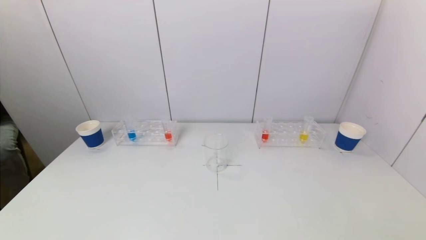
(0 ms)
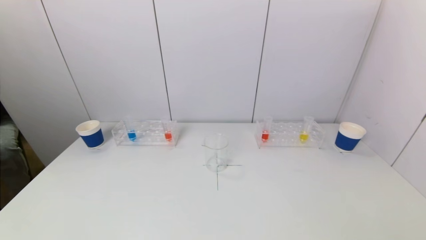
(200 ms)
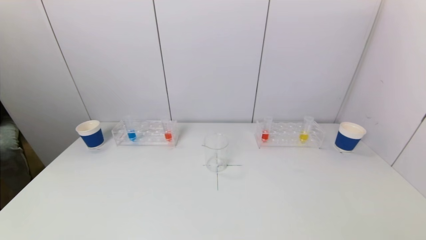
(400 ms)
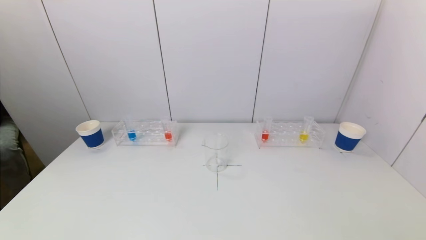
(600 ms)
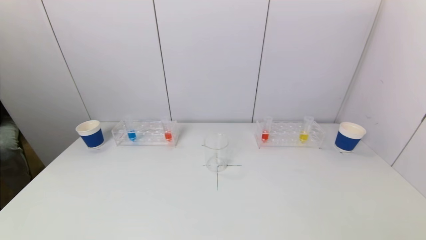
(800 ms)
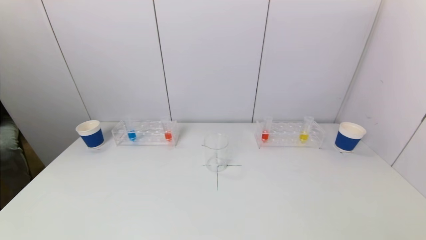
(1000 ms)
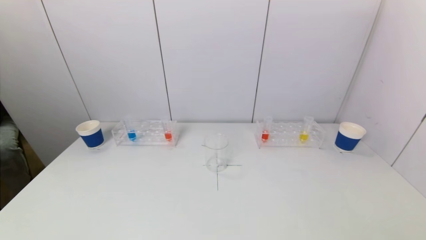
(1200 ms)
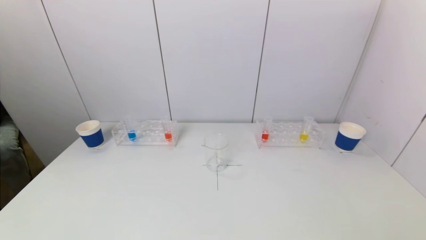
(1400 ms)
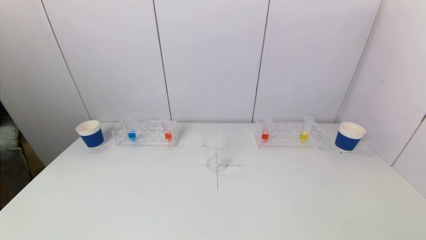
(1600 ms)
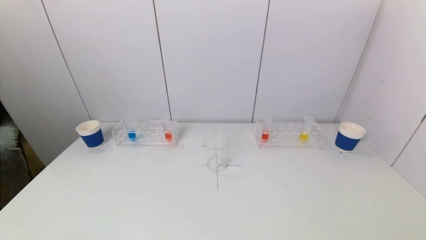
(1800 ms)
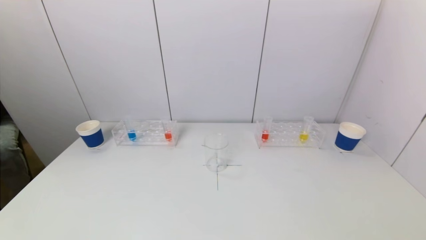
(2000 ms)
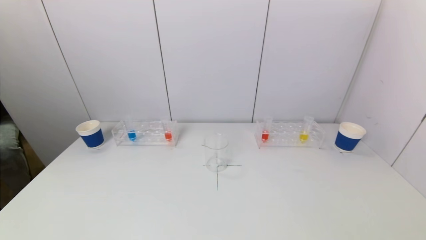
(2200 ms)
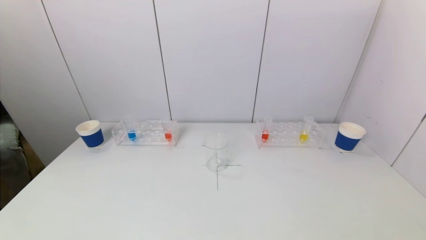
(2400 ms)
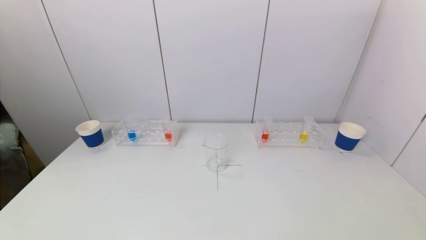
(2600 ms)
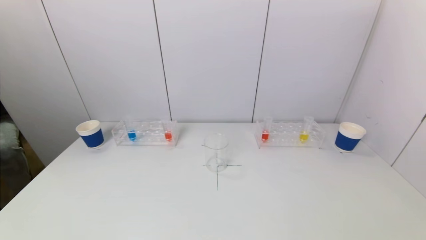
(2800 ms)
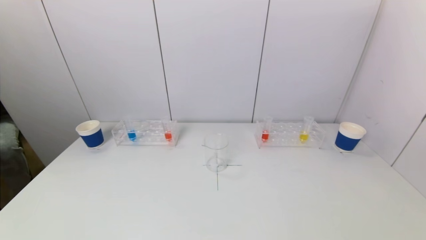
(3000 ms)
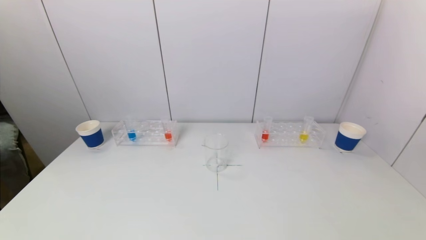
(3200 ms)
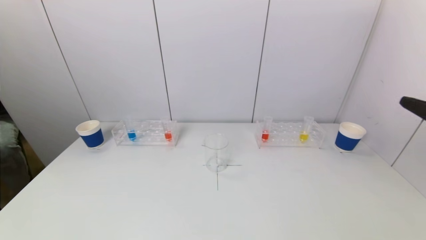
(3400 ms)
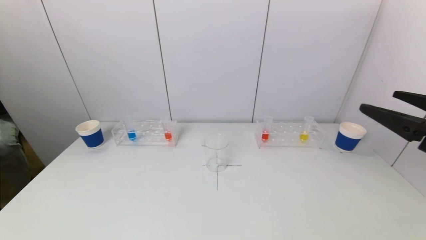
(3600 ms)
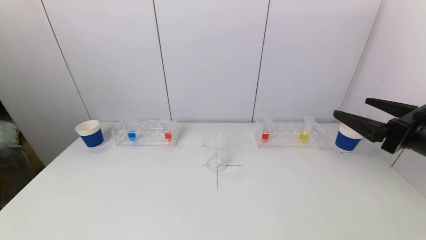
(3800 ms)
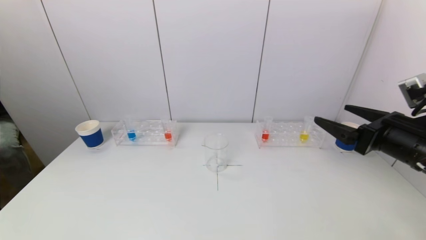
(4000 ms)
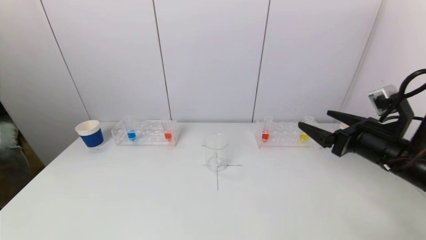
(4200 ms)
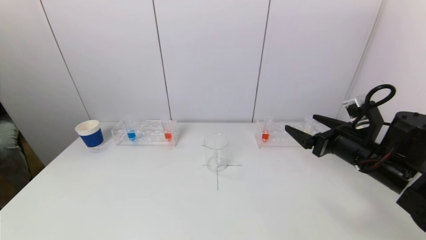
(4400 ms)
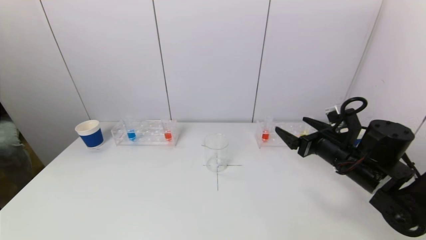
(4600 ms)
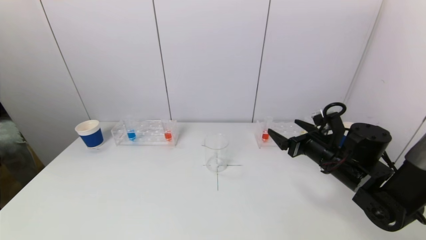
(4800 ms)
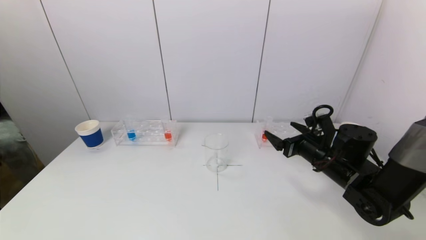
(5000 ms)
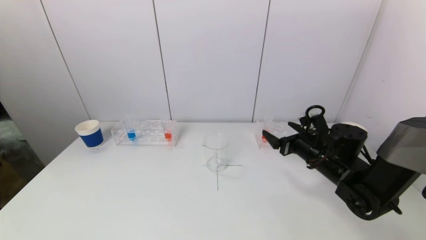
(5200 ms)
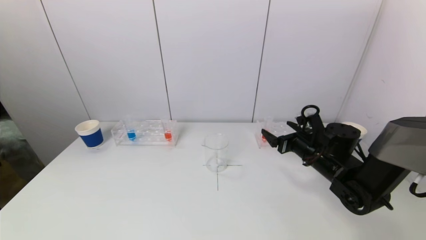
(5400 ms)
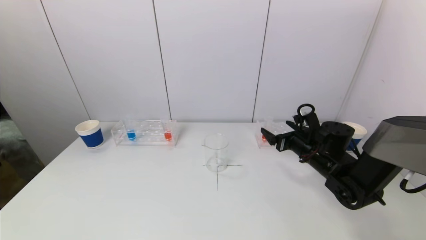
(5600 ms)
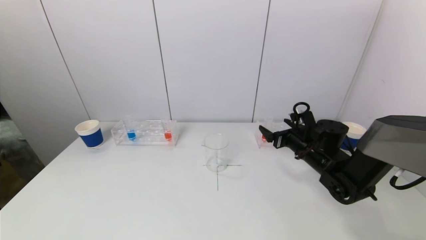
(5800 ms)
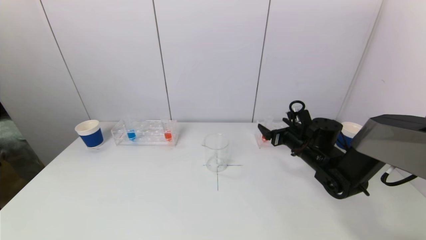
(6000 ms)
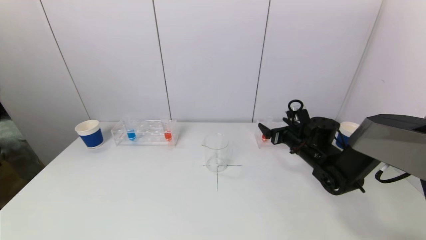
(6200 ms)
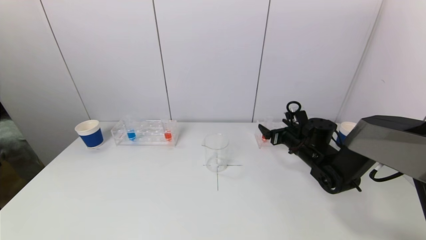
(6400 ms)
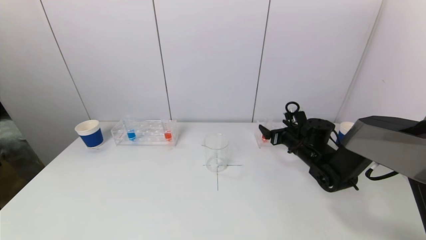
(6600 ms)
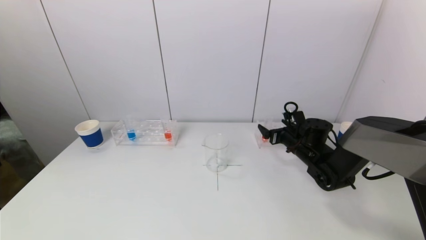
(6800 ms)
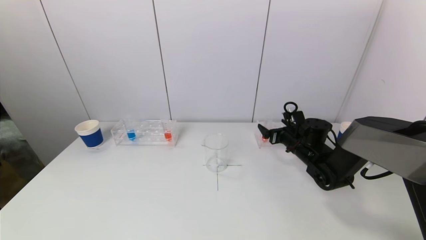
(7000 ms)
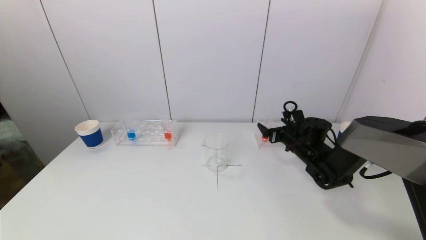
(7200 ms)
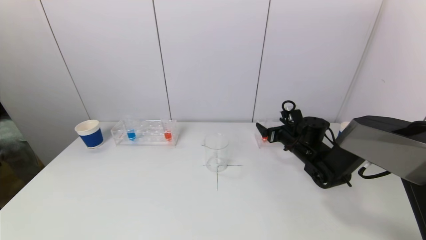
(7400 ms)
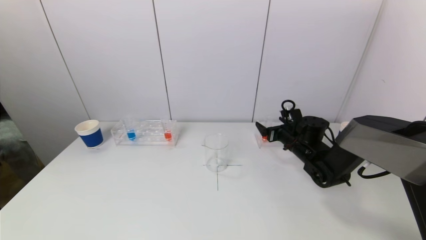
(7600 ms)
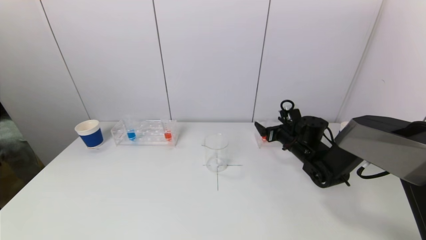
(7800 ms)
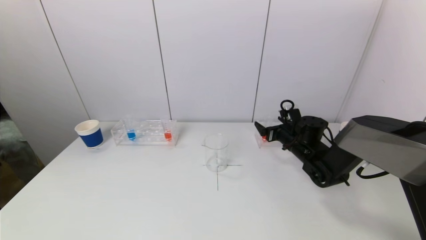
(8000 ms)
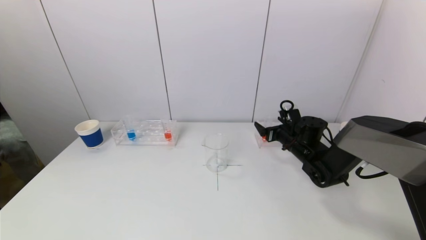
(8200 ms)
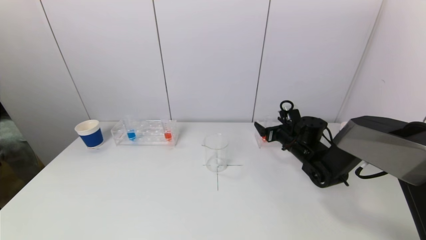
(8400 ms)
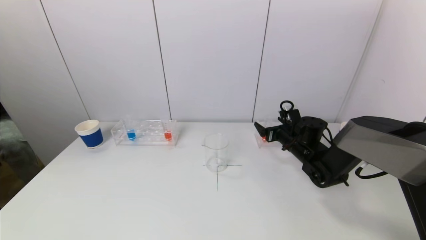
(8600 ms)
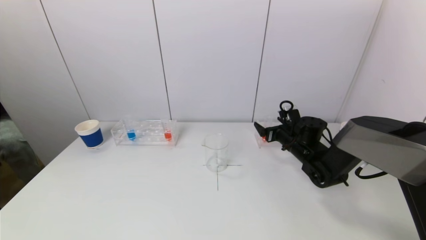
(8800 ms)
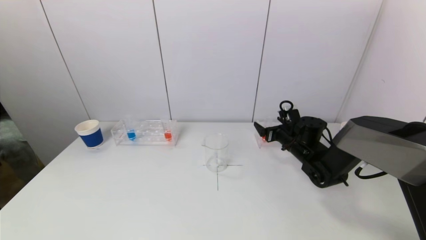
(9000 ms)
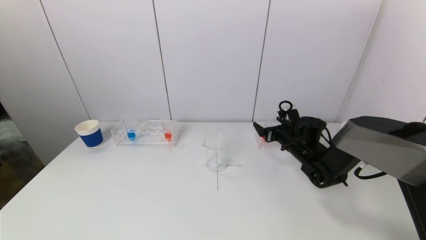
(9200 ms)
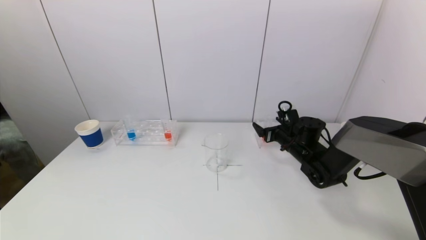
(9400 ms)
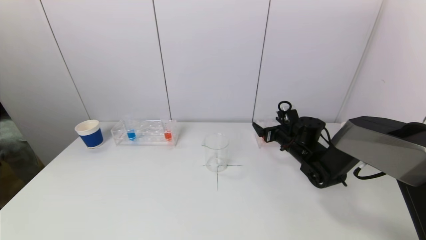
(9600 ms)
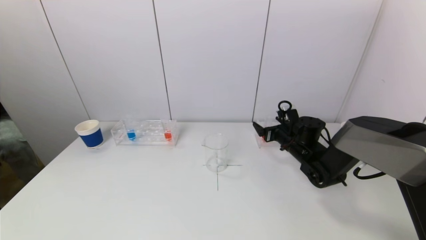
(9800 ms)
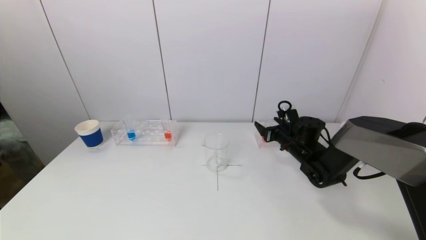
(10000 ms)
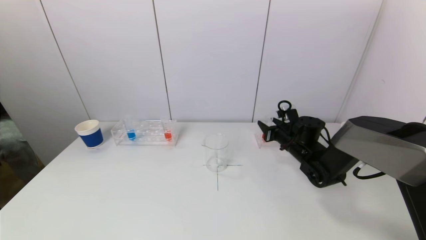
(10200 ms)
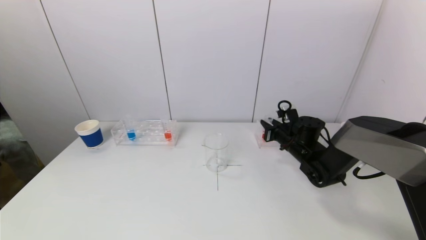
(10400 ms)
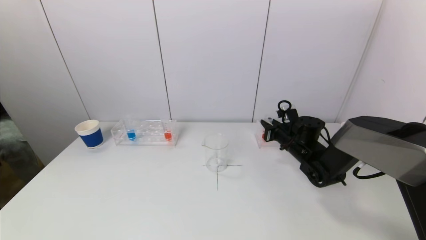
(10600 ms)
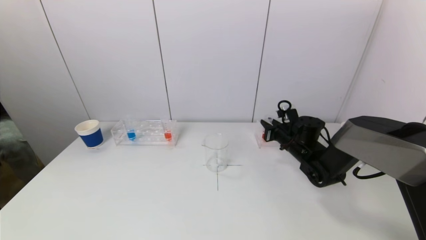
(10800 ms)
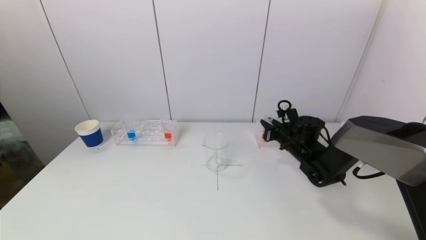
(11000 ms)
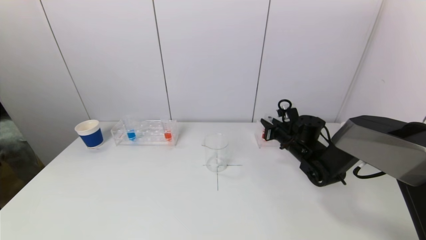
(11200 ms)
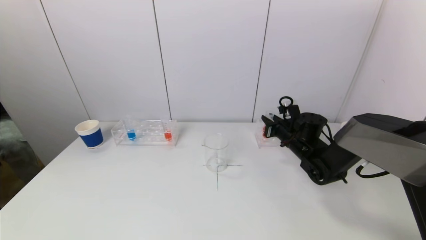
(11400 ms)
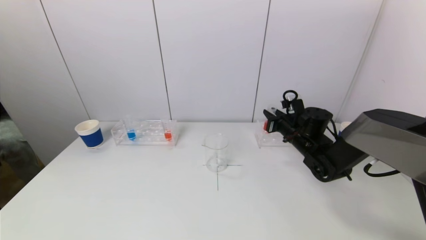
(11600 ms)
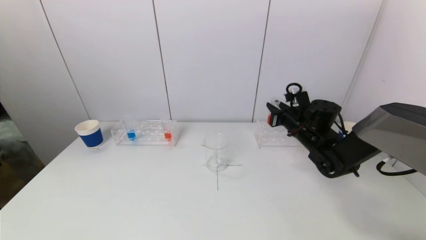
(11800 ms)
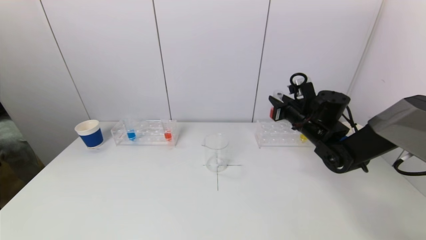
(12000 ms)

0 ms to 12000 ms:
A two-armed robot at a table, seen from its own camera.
Task of the whole recording: pick up a test tube with pigment on left test tube rack and a test tube with pigment on right test tube rack by grippers and pour them into the beaker.
Step, 0 ms to 11000 ms: Grasp the red reagent with the right gripper.
3000 ms to 4400 ms: The right gripper is displaced forward and downward by about 25 cm.
4400 ms to 6000 ms: The right gripper goes roughly 15 cm forward and downward.
6000 ms to 7600 ms: The grippers make only small movements.
7600 ms to 9000 ms: Both grippers stay put.
9000 ms to 10400 ms: The right gripper closes up.
10400 ms to 12000 ms: The right gripper goes roughly 10 cm upward.

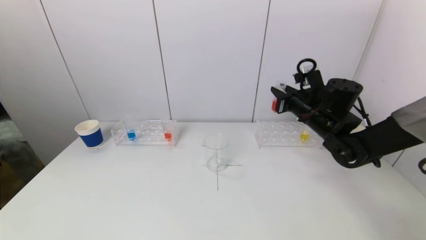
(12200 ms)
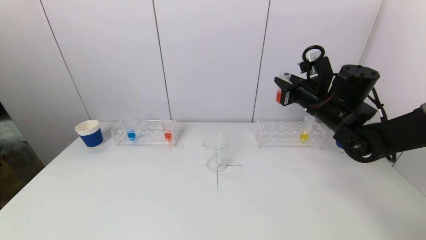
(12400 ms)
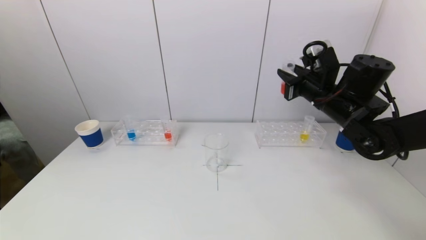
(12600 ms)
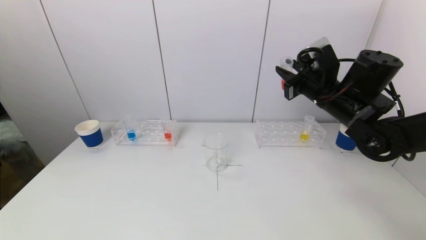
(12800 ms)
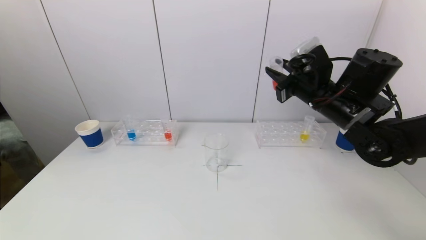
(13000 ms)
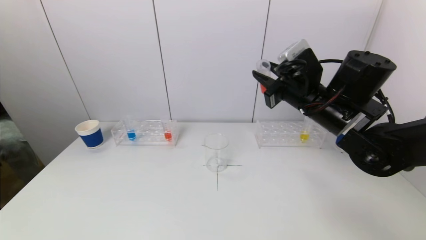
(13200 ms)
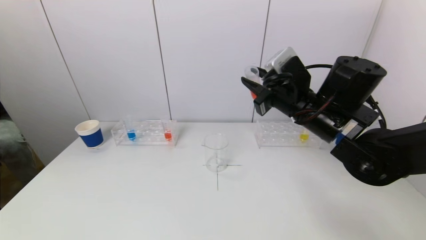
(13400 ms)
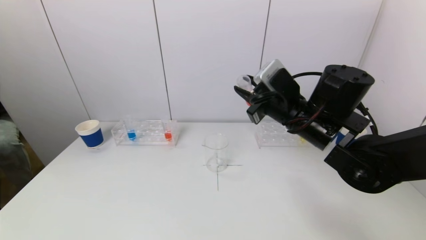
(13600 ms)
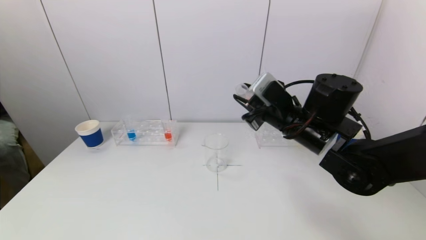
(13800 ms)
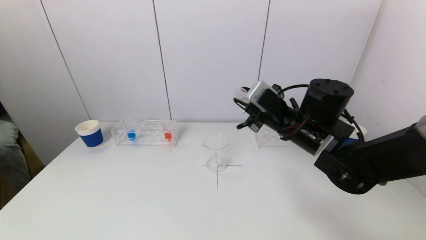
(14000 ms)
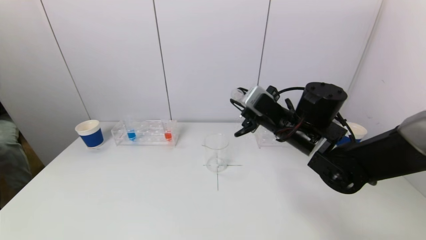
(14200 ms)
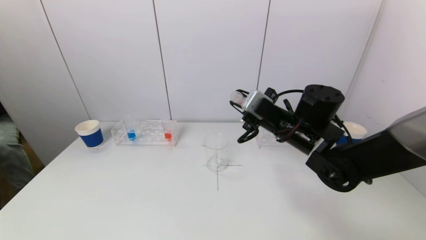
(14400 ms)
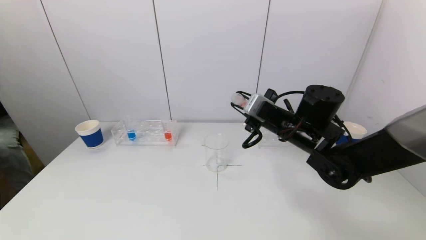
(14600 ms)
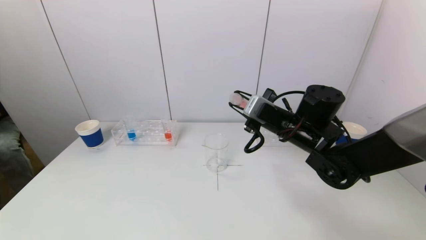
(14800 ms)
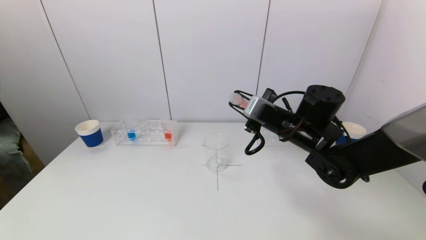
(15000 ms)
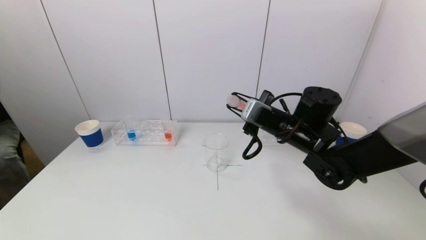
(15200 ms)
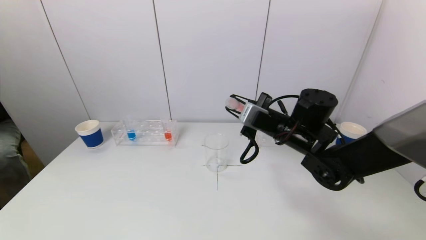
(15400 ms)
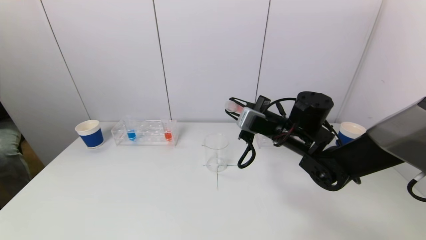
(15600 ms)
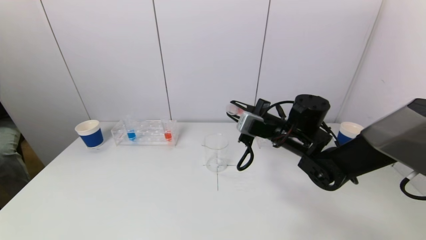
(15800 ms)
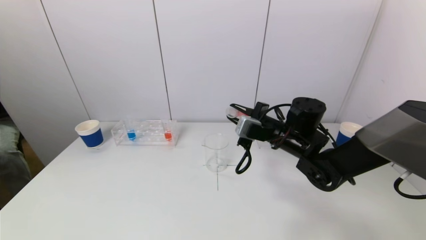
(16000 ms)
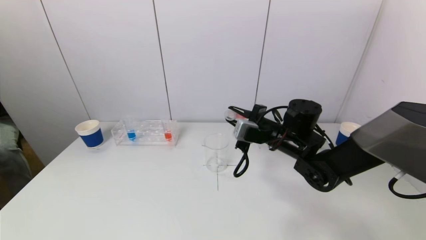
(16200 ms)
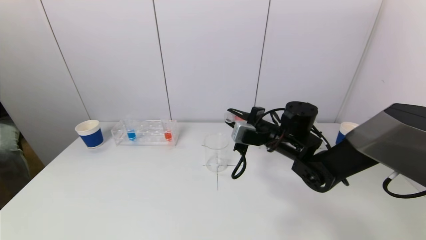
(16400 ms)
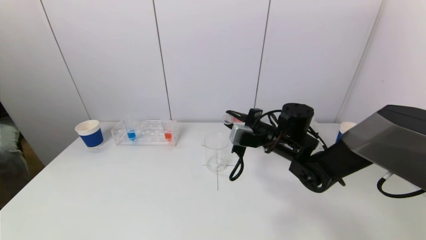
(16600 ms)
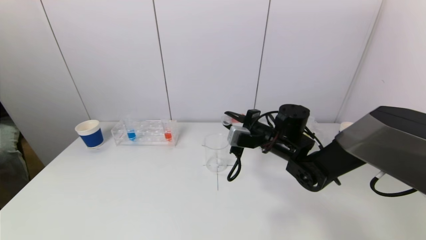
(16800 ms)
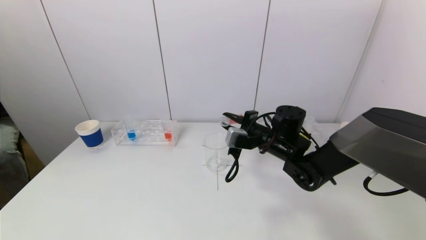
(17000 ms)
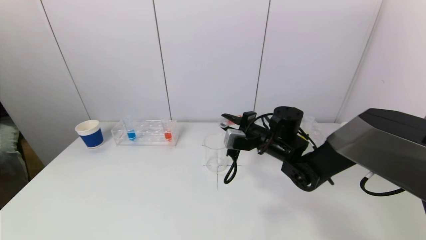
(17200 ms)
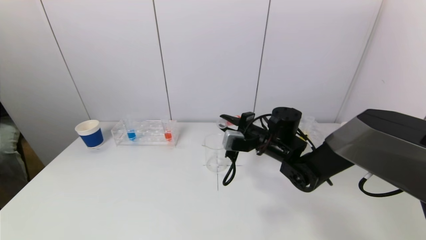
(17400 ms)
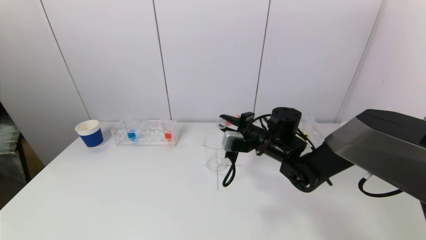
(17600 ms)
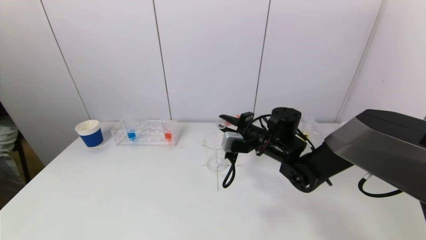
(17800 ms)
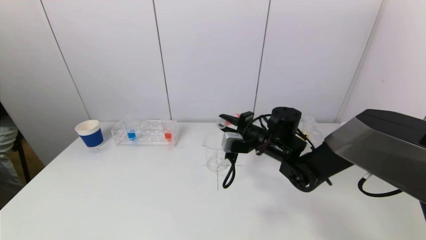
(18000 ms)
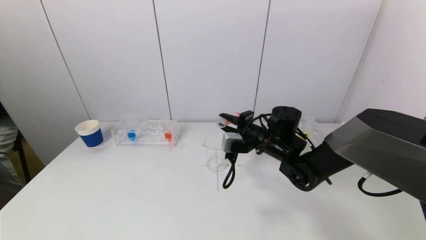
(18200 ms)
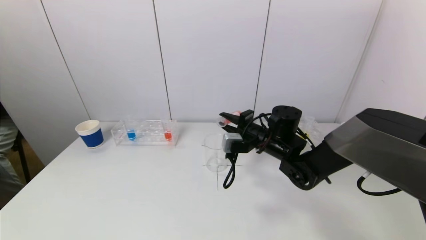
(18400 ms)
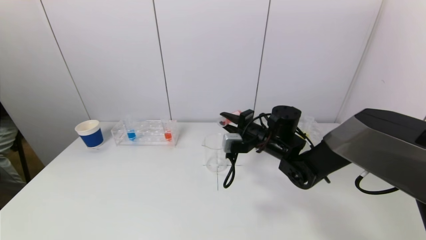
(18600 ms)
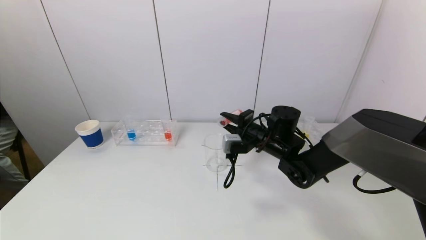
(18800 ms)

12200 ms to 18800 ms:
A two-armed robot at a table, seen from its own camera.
Task of the whole recording: pick up a test tube with pigment on left test tube rack and a test tube with pigment on right test tube rack by grippers and pour them into the beaker.
12200 ms to 13800 ms: The right gripper shifts approximately 10 cm to the left and backward.
13800 ms to 15400 ms: The right gripper changes place by about 5 cm.
15400 ms to 17200 ms: The right gripper heads downward, covering roughly 5 cm.
17200 ms to 18800 ms: The grippers stay close to where they were, moving slightly.
